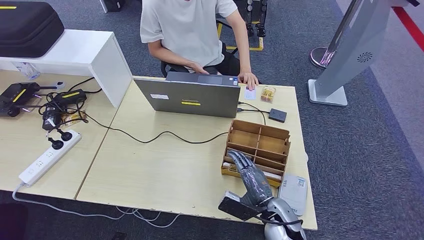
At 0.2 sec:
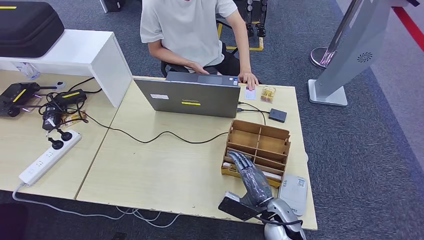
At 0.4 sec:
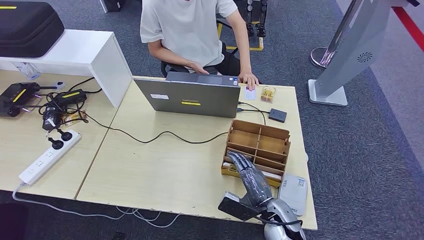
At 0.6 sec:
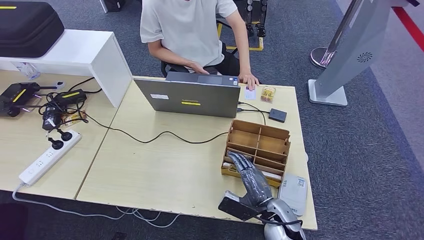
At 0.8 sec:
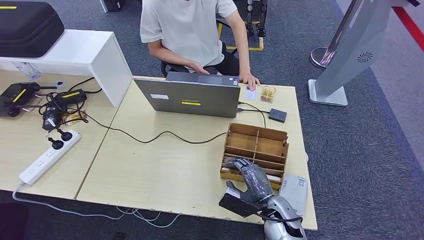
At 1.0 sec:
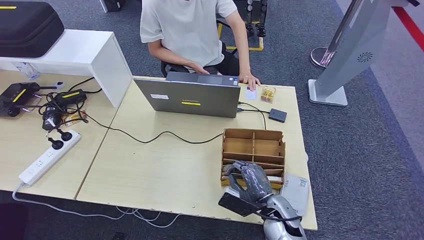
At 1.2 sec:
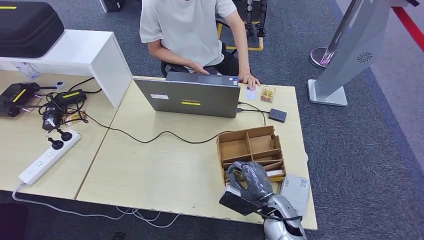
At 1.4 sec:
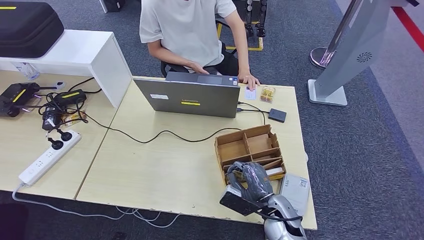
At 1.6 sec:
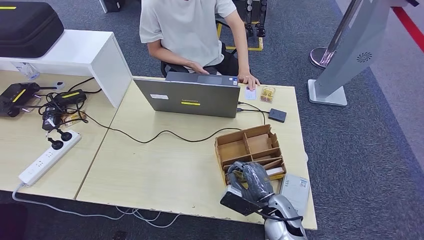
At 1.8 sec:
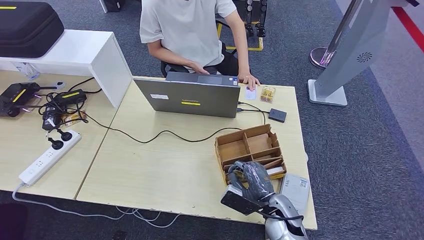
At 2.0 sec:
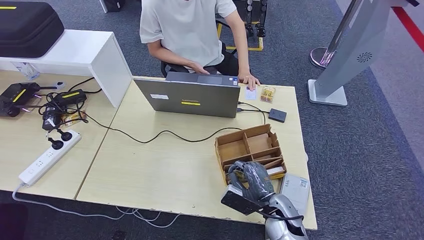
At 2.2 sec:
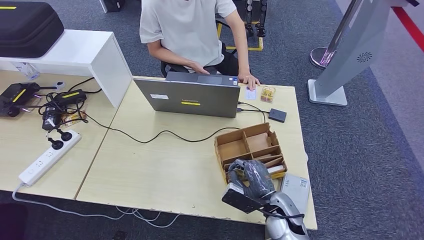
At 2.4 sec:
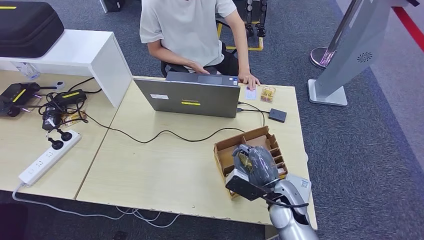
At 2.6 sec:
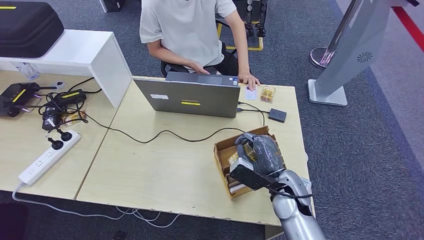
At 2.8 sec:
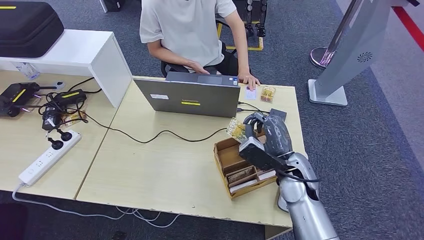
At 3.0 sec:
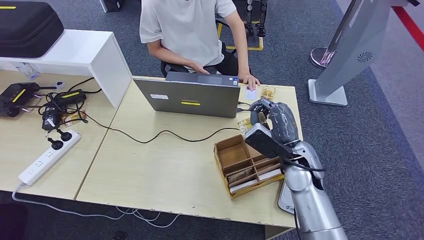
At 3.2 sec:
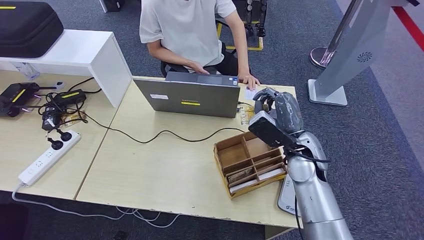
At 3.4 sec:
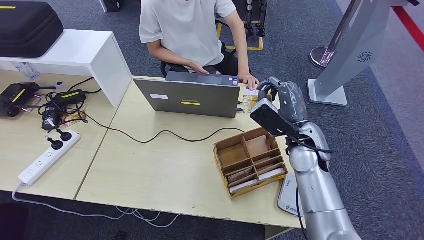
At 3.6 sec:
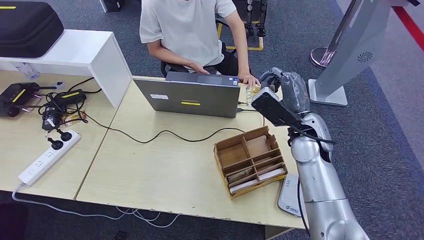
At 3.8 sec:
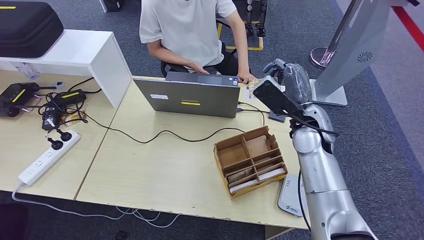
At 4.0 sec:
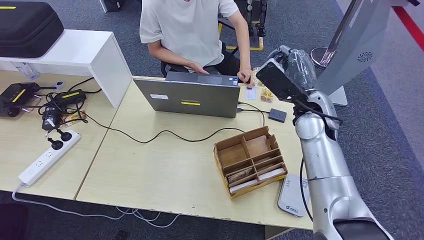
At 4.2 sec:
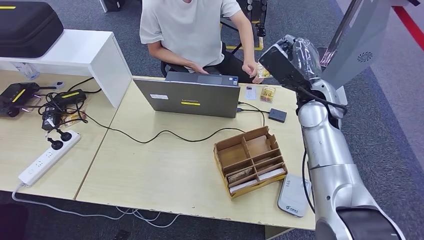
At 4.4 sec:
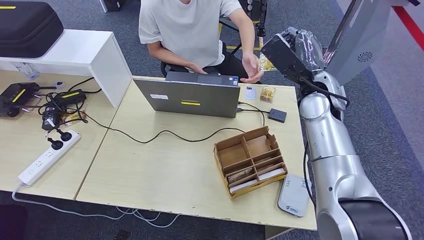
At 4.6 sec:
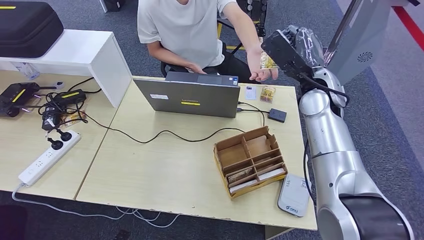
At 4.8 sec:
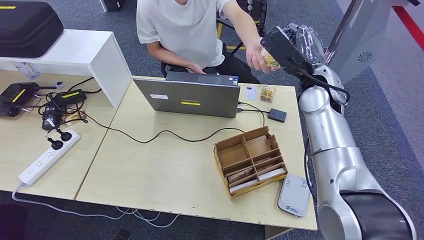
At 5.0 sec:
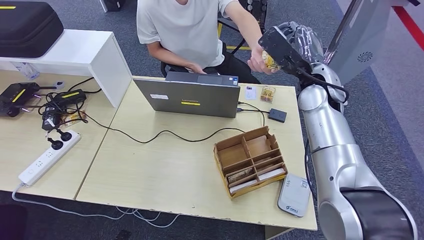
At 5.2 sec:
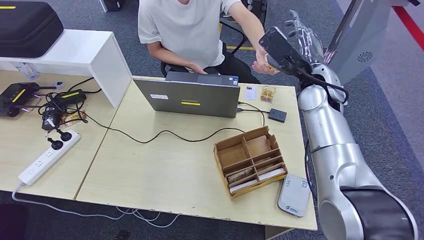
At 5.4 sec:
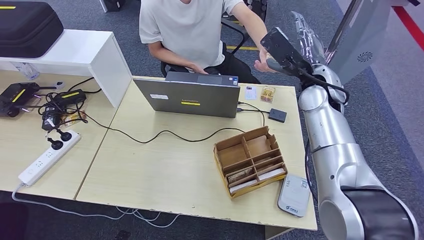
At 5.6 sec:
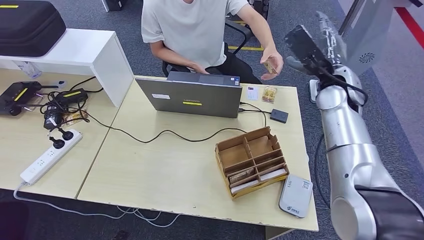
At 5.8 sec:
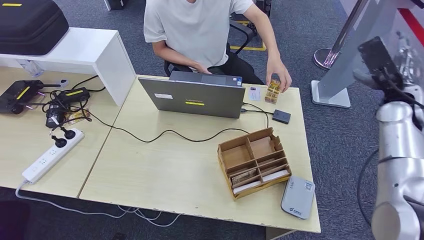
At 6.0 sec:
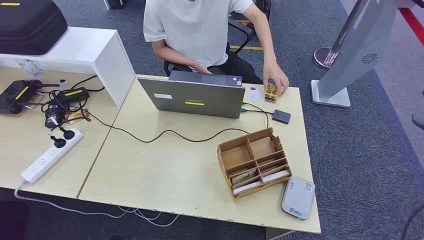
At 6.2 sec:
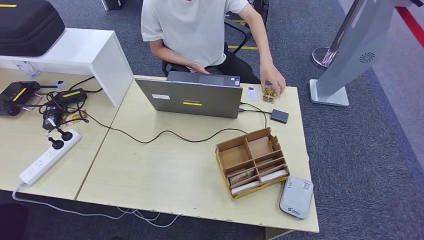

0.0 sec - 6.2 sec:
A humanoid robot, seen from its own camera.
Step, 0.8 sec - 3.6 sec: Pick up the room key from the key card box.
Step, 4.0 sec - 6.2 sec: Hand the room key to the person.
0.0 sec - 1.6 sec: Both hands stay put.
1.6 sec - 3.2 sec: The right hand heads upward and forward, covering approximately 20 cm.
3.2 sec - 4.6 sec: The right hand heads upward and forward, covering some 15 cm.
4.6 sec - 6.2 sec: The right hand goes about 40 cm to the right.
